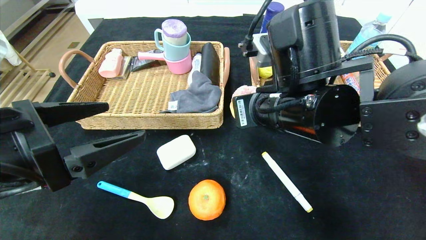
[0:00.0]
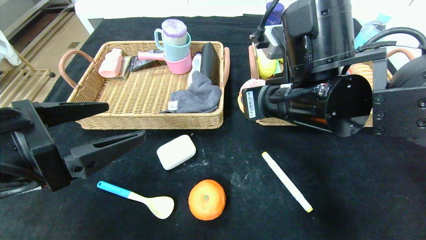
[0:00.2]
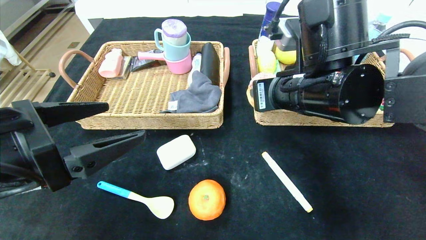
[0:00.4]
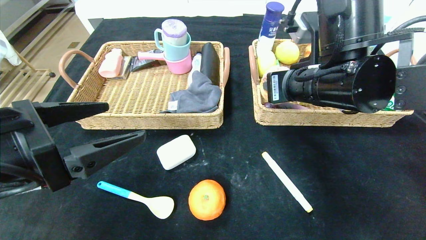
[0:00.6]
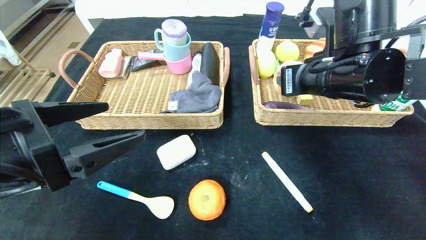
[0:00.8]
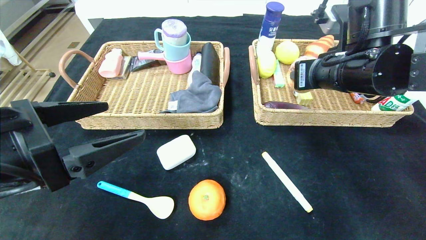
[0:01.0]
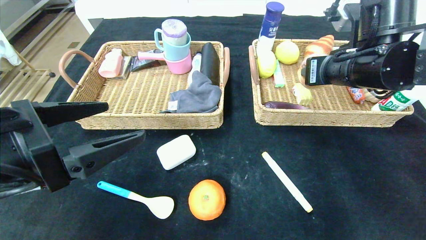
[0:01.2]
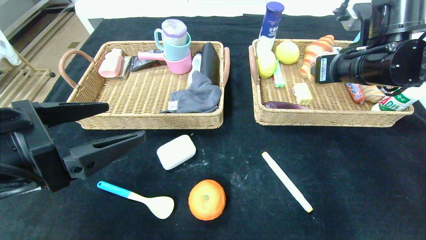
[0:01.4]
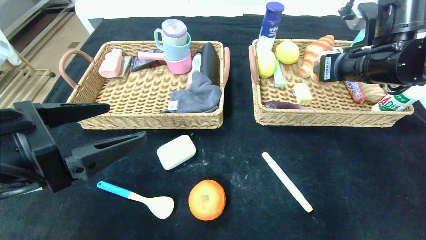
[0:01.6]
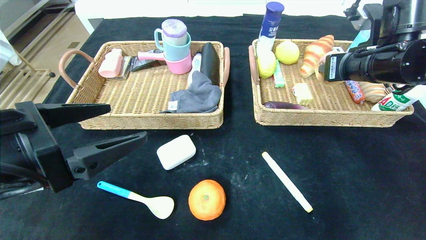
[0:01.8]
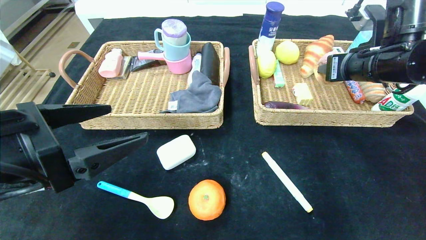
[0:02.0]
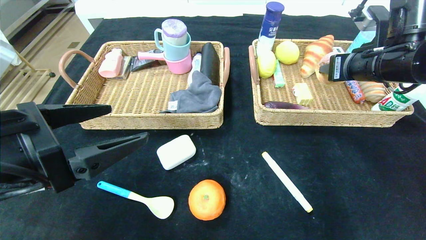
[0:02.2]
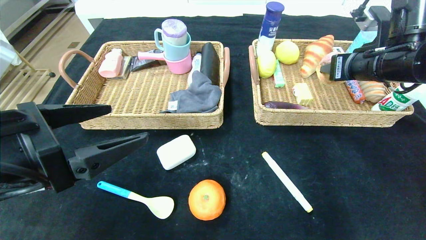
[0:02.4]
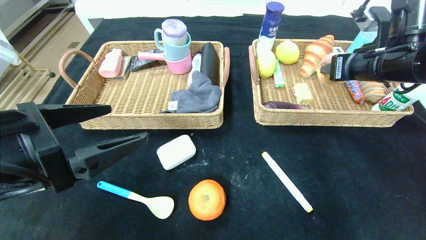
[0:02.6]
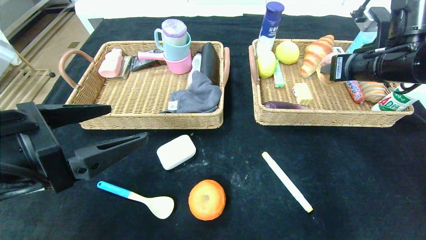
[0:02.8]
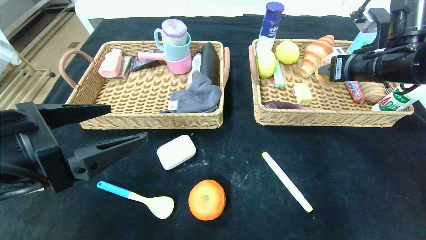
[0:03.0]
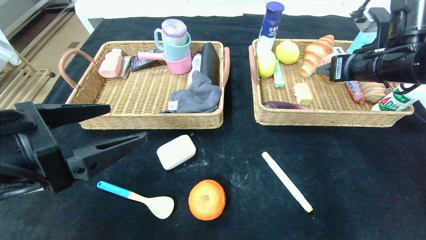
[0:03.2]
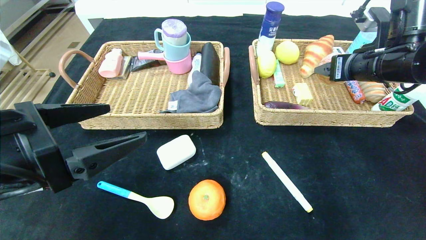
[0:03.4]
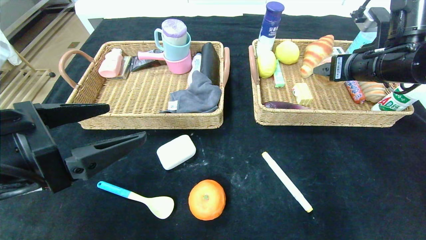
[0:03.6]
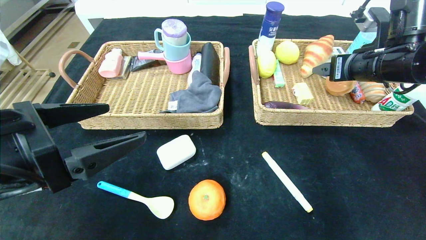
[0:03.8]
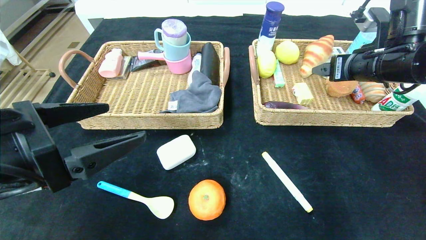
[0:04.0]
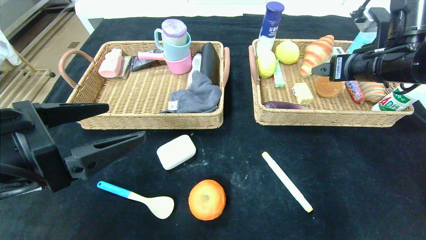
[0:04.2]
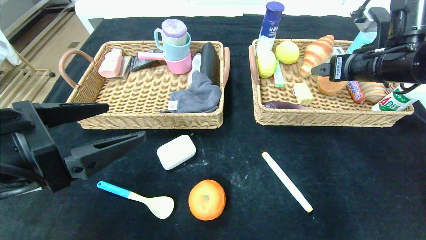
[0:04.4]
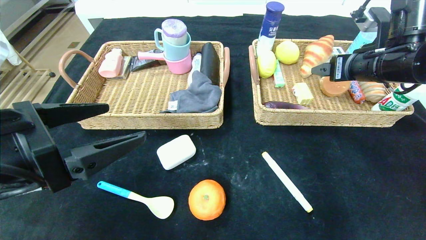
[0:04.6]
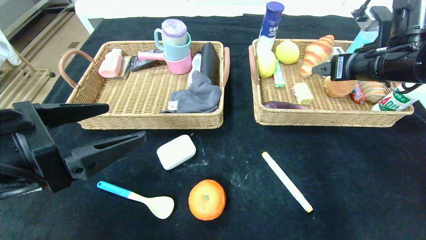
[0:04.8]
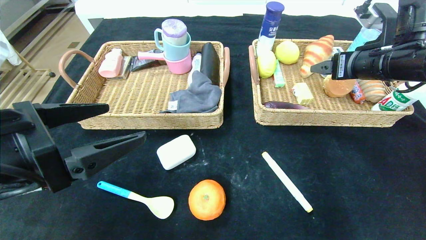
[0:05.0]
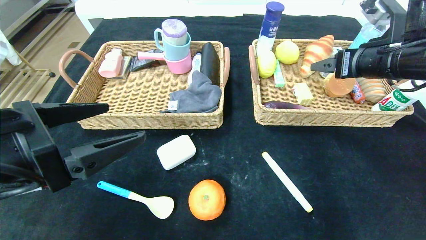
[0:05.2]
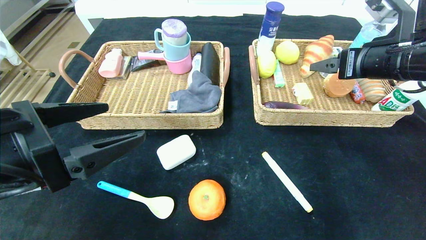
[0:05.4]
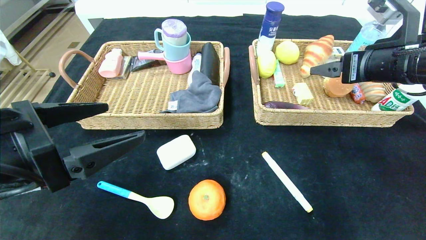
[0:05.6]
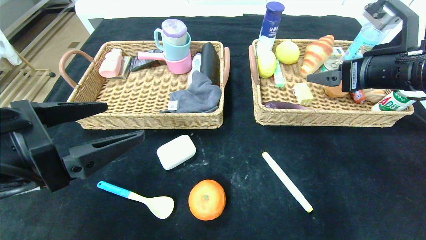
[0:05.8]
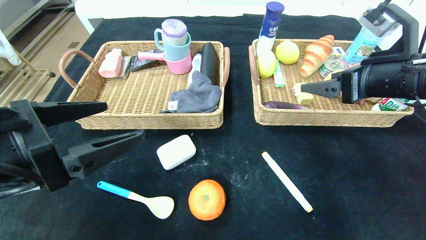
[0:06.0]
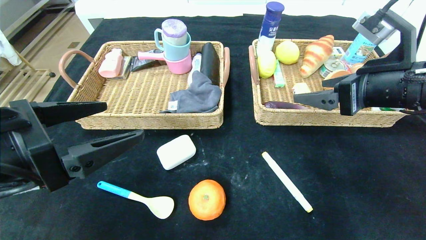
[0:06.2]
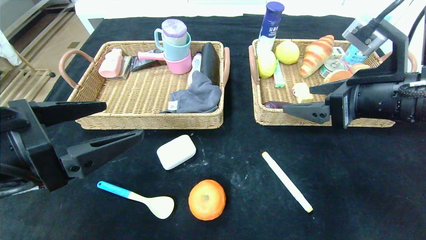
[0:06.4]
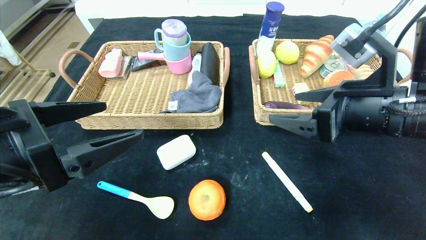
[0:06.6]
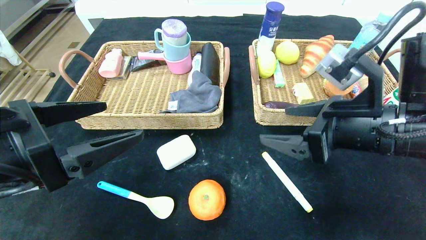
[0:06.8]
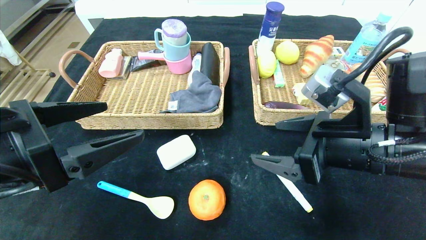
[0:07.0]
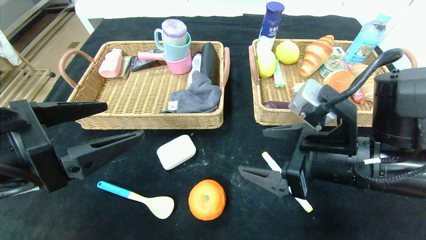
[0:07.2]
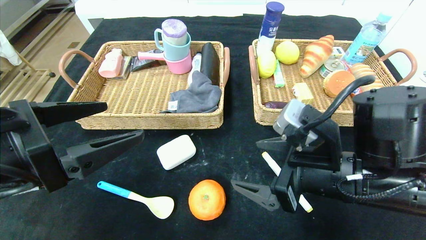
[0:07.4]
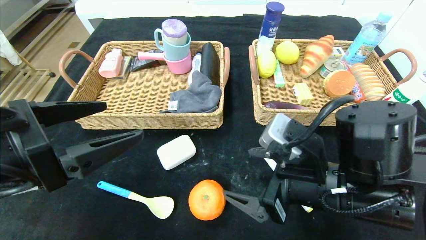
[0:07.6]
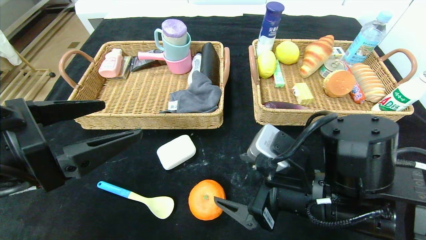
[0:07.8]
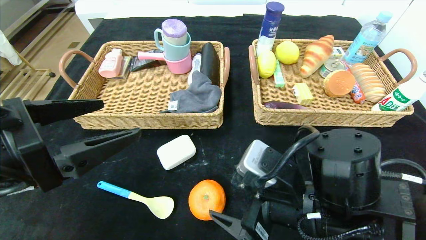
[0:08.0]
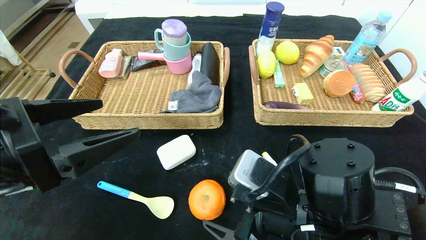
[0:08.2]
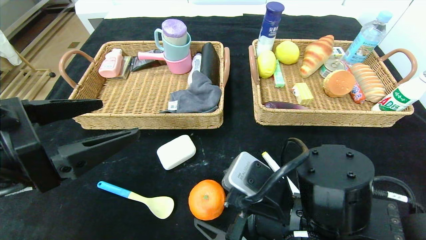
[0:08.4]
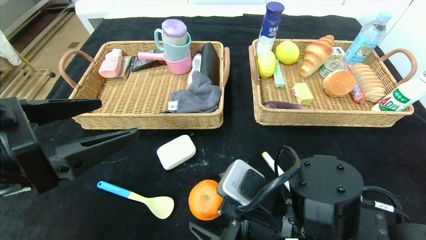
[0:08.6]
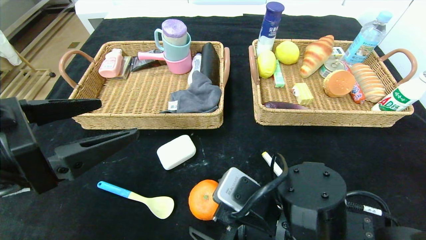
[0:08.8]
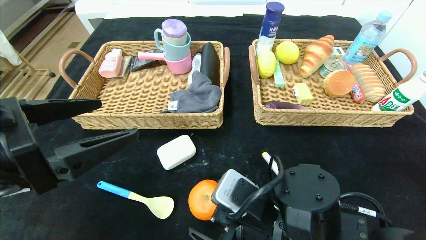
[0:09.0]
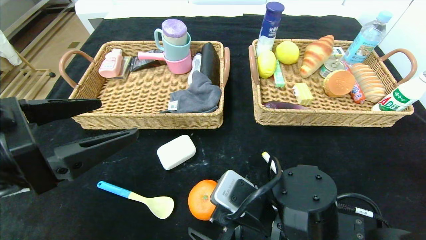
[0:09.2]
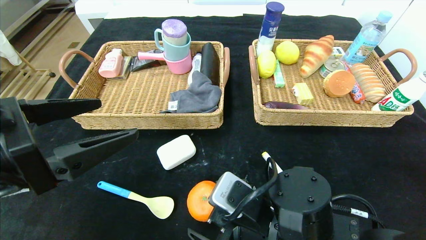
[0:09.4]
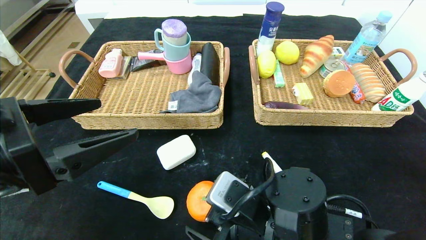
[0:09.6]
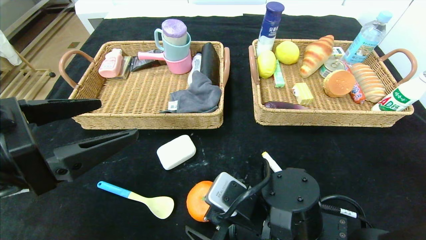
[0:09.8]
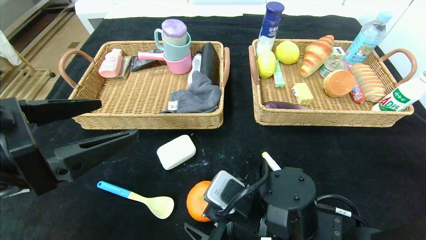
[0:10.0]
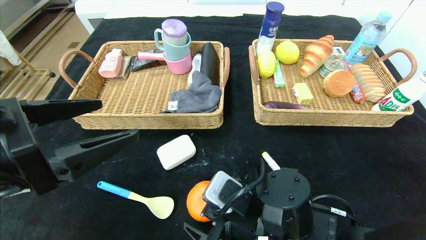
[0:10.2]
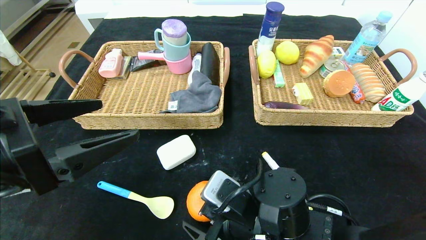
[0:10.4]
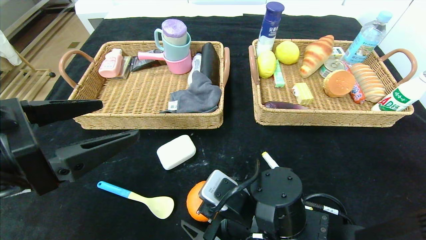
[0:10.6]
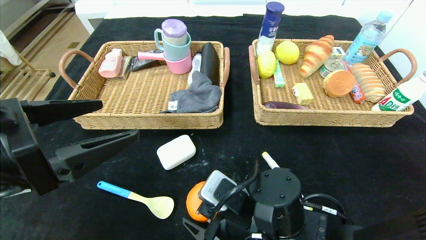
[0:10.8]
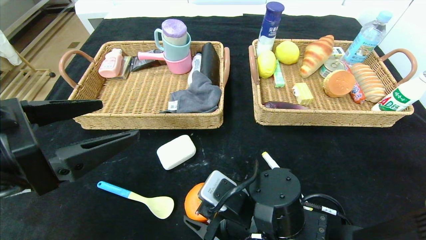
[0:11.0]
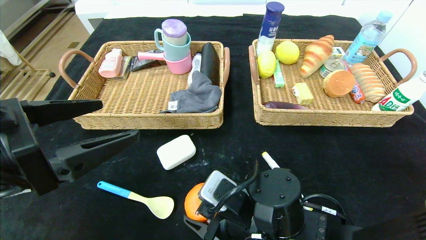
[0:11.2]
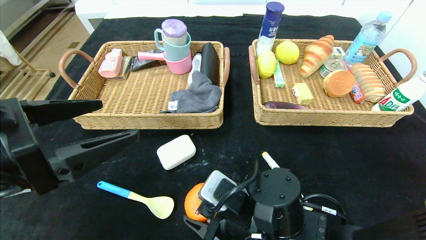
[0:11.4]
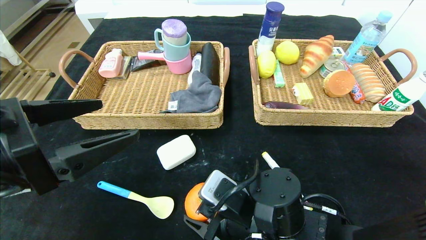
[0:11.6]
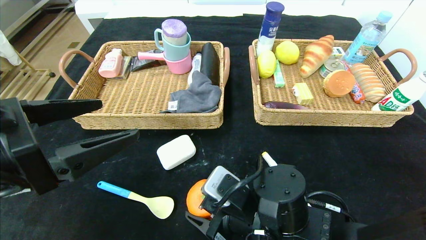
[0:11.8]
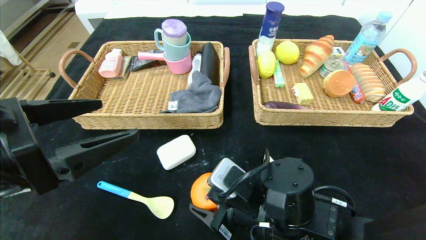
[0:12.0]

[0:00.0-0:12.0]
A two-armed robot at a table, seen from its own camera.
Step, 0:00.0 to 0:04.0: Grasp the round bread and put it in the right basket.
0:00.0 to 0:01.6: The right gripper is displaced to the right and forward by roughly 15 cm.
0:01.6 to 0:03.0: The grippers stay close to where they were, moving slightly.
0:03.0 to 0:04.4: The right gripper opens up.
0:04.4 to 0:06.0: The right gripper heads backward, covering some 5 cm.
0:06.0 to 0:07.6: The right gripper shifts about 20 cm to the left, downward and backward.
0:07.6 to 0:09.0: The right gripper goes about 10 cm downward and to the left.
0:09.0 to 0:10.4: The grippers stay close to where they were, moving slightly.
0:10.4 to 0:12.0: The two grippers keep their place.

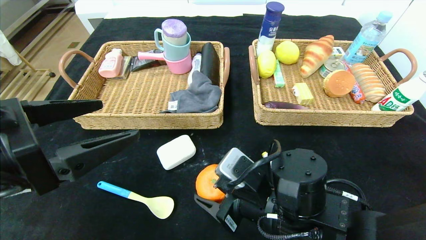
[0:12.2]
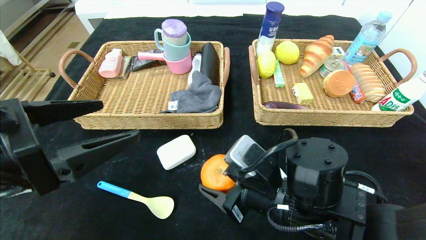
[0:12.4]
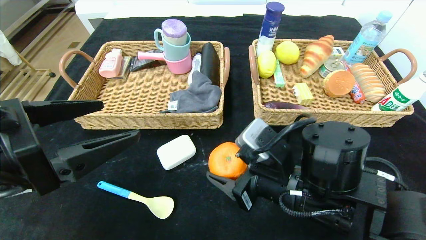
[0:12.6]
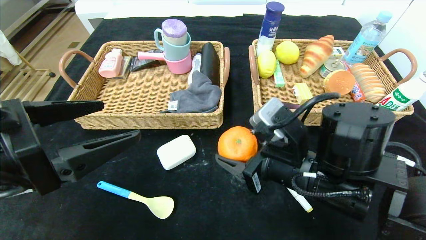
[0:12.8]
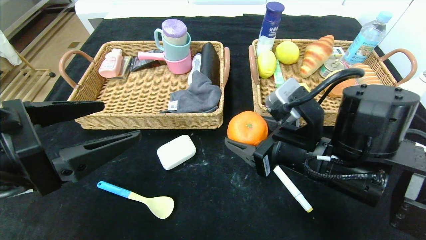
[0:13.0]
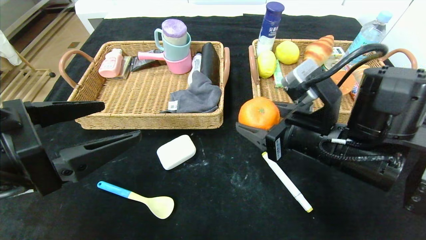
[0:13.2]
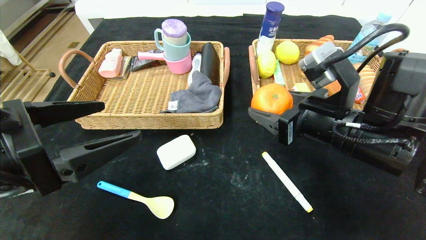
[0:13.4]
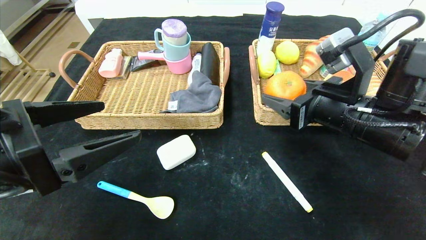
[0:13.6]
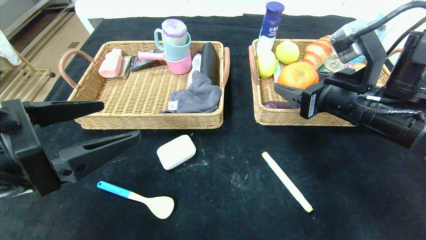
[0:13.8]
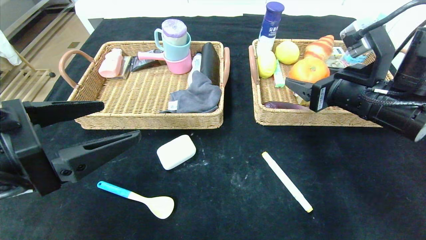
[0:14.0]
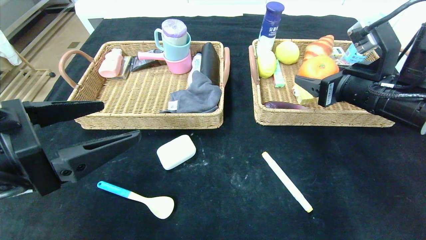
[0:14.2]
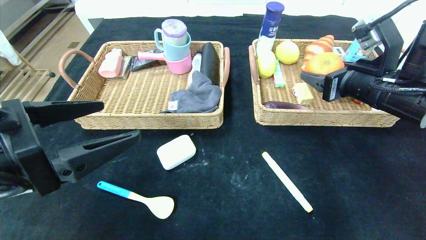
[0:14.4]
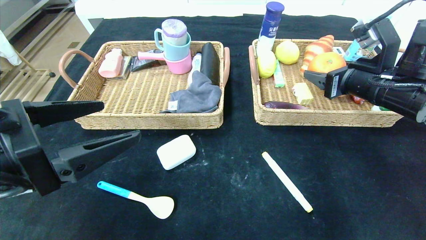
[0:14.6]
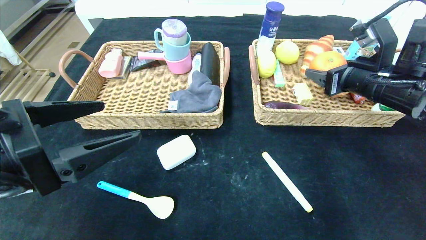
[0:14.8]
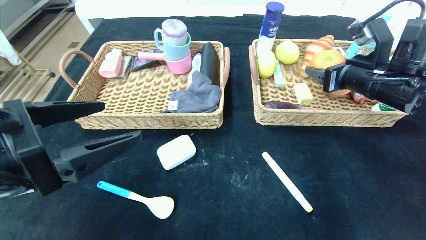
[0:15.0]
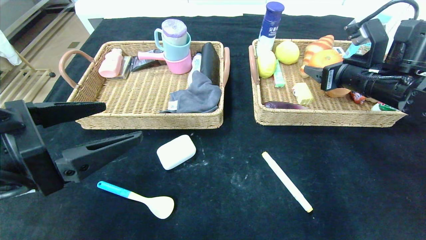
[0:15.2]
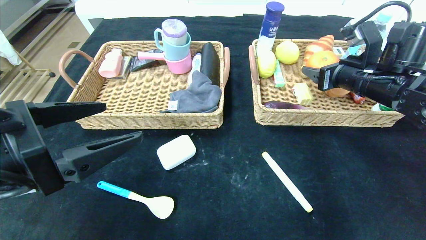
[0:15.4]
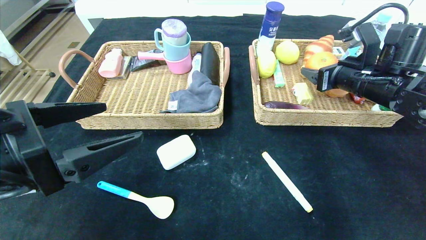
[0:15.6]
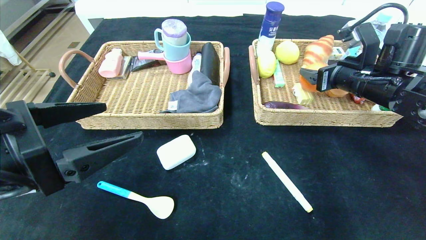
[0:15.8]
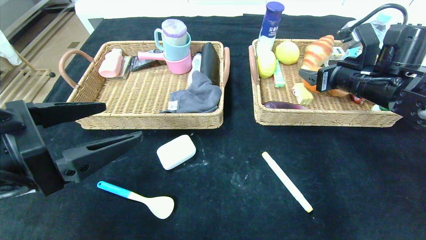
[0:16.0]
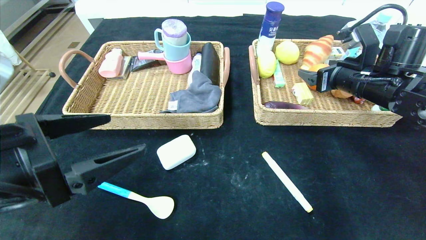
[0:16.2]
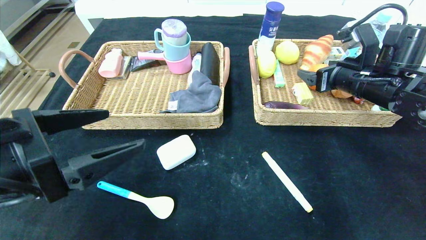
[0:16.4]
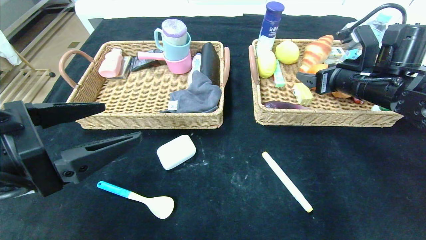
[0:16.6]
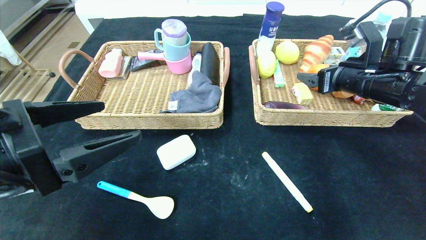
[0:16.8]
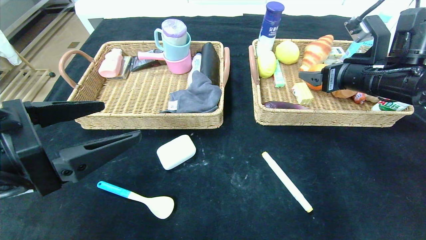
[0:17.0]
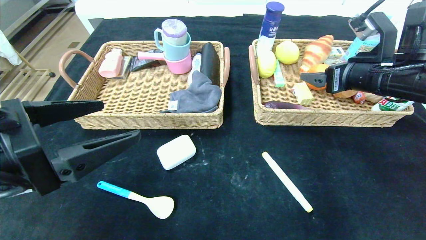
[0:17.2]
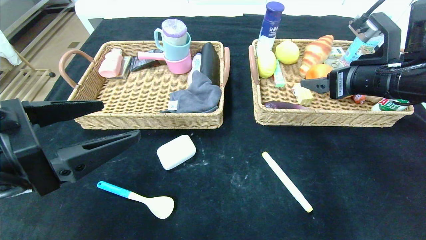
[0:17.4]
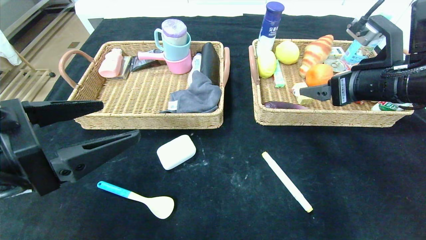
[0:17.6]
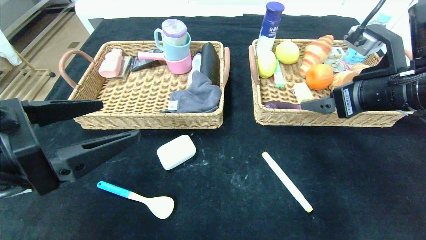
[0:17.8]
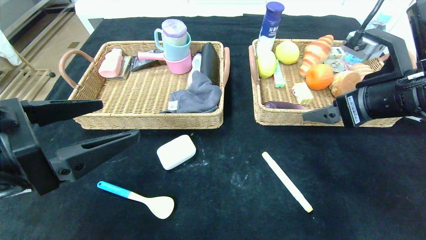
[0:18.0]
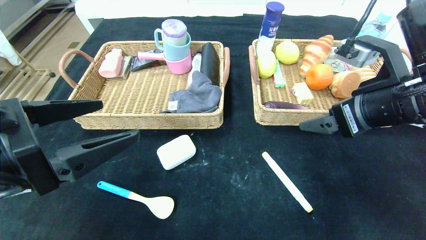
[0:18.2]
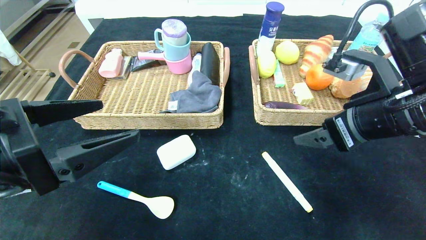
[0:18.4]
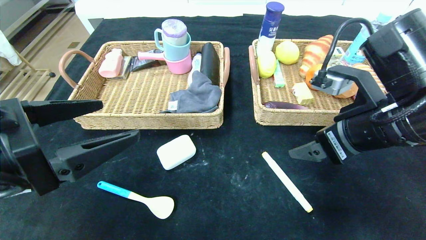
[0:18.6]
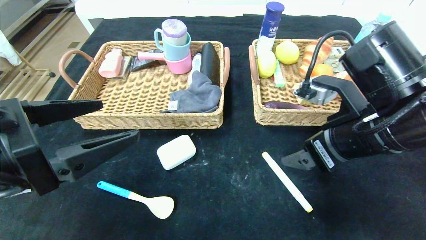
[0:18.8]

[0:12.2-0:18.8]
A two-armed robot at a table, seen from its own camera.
Step, 0:12.2 to 0:16.2: Grasp the orange and put it in the right basket.
0:12.2 to 0:13.8: The right gripper goes roughly 20 cm upward, to the right and forward.
0:13.8 to 0:15.4: The right gripper goes about 10 cm forward and to the right.
0:15.4 to 0:17.2: The grippers stay close to where they were, moving slightly.
0:17.2 to 0:18.8: The right gripper heads backward and to the left, covering roughly 10 cm.
